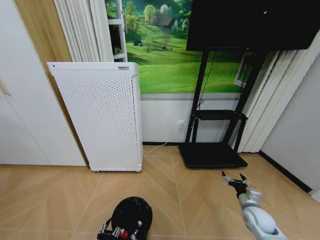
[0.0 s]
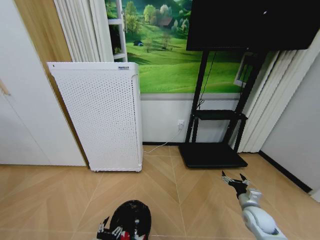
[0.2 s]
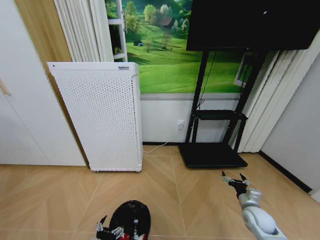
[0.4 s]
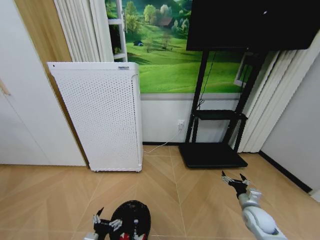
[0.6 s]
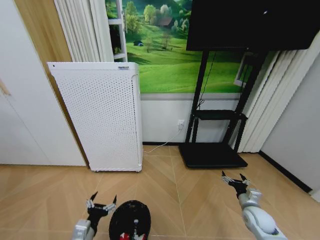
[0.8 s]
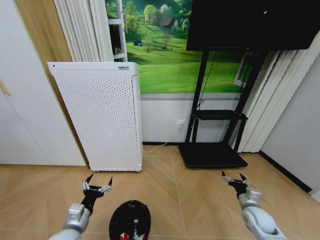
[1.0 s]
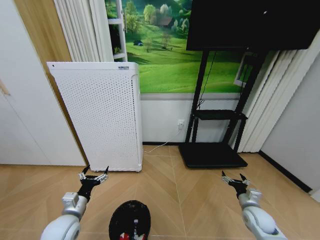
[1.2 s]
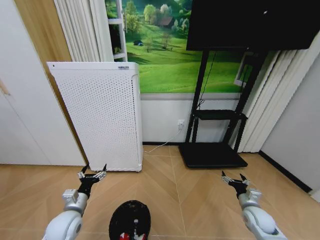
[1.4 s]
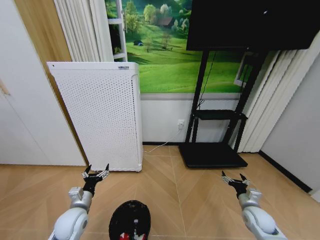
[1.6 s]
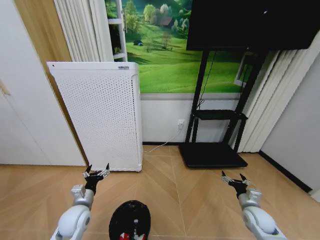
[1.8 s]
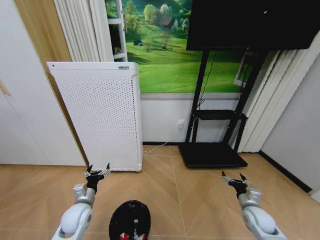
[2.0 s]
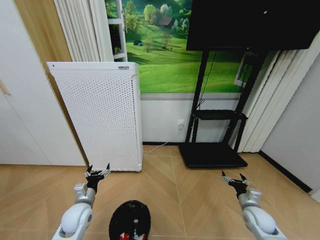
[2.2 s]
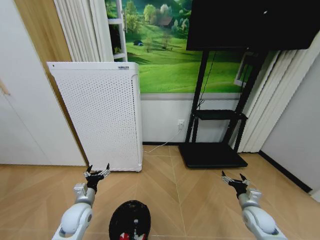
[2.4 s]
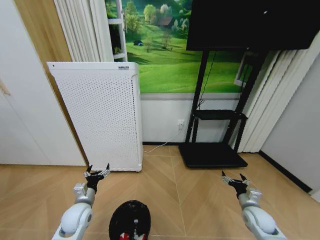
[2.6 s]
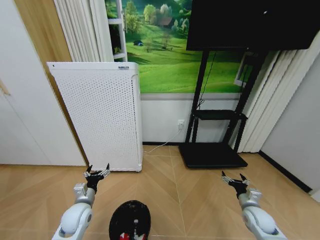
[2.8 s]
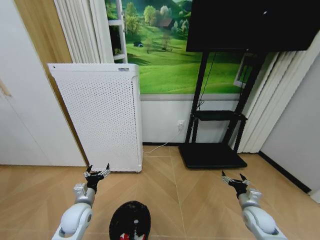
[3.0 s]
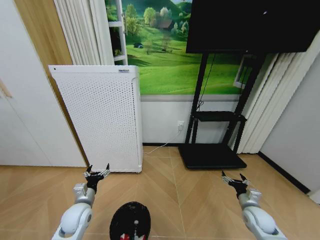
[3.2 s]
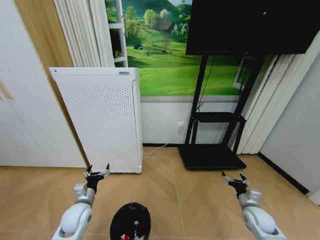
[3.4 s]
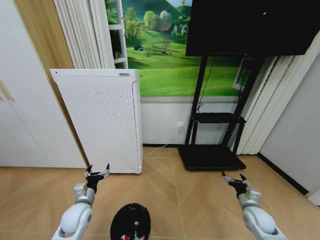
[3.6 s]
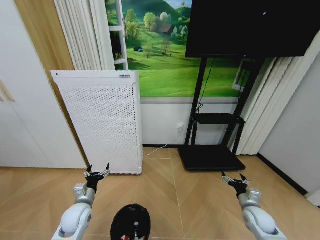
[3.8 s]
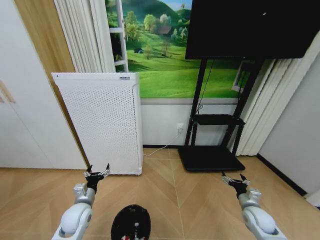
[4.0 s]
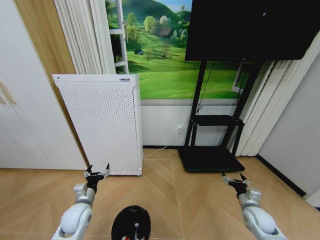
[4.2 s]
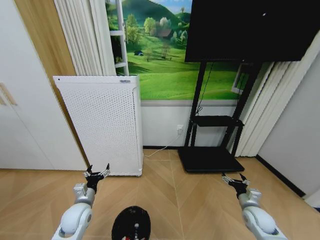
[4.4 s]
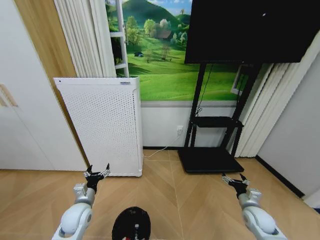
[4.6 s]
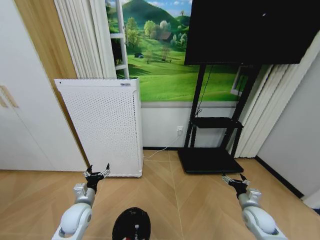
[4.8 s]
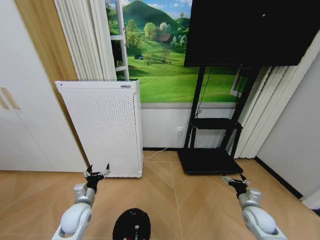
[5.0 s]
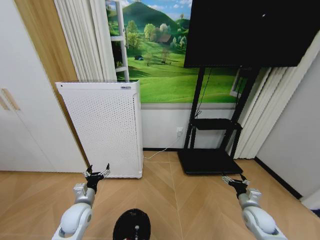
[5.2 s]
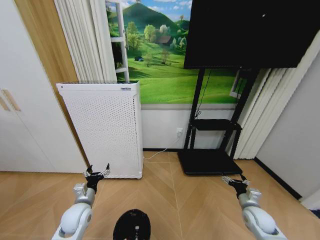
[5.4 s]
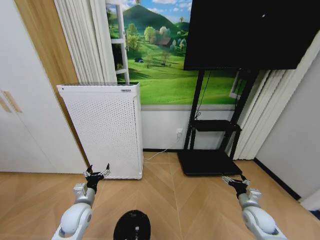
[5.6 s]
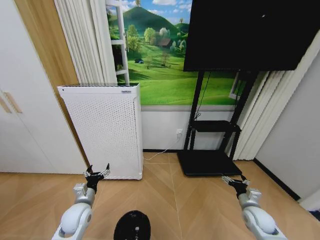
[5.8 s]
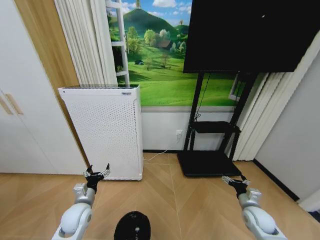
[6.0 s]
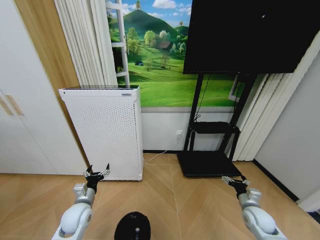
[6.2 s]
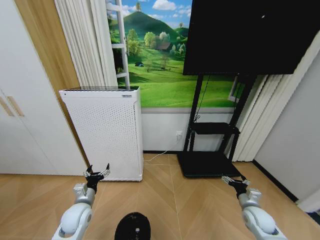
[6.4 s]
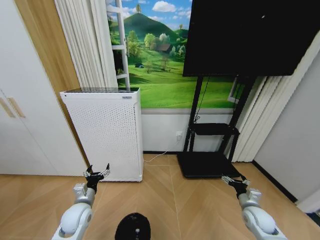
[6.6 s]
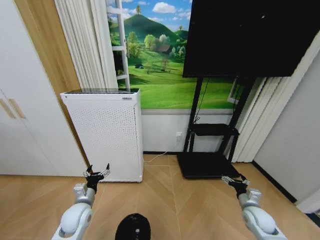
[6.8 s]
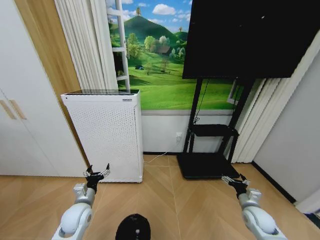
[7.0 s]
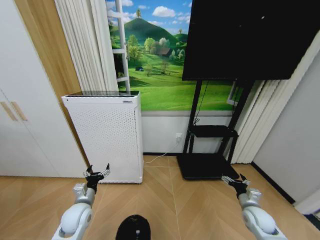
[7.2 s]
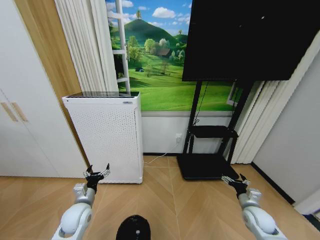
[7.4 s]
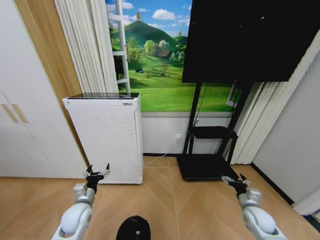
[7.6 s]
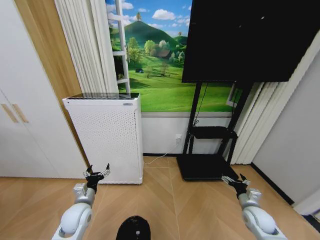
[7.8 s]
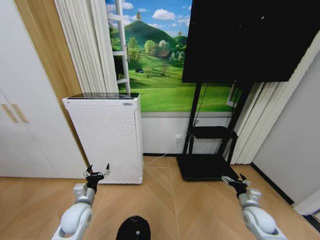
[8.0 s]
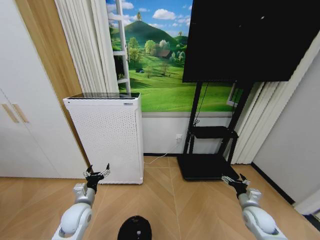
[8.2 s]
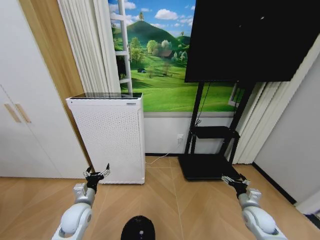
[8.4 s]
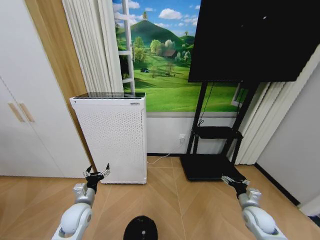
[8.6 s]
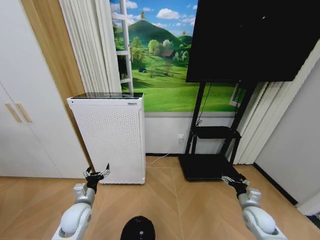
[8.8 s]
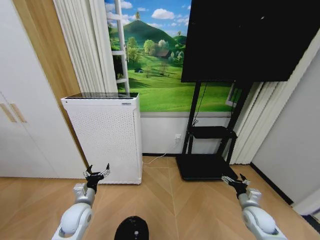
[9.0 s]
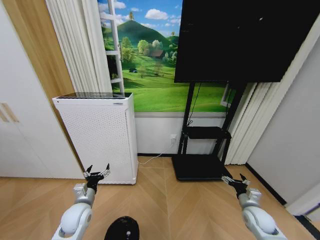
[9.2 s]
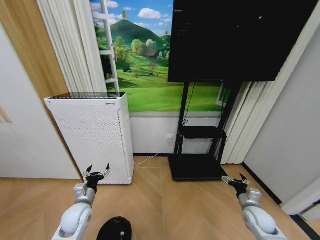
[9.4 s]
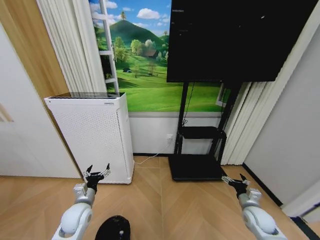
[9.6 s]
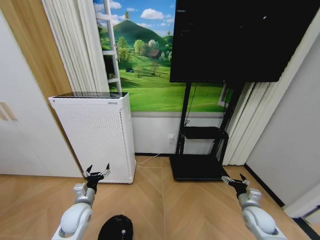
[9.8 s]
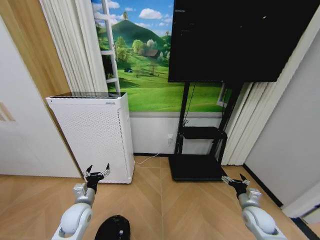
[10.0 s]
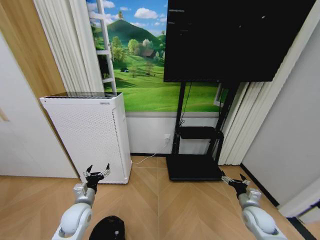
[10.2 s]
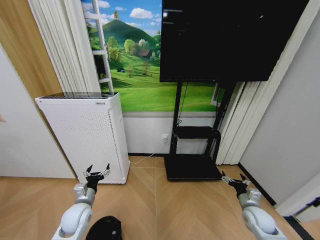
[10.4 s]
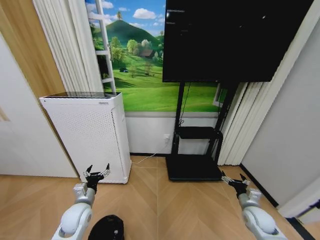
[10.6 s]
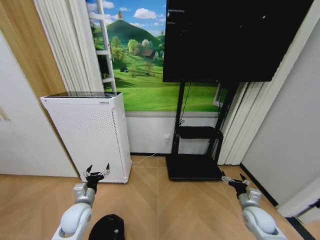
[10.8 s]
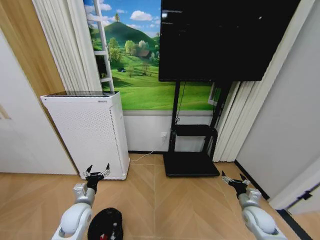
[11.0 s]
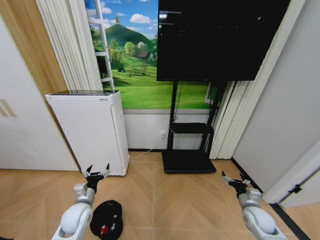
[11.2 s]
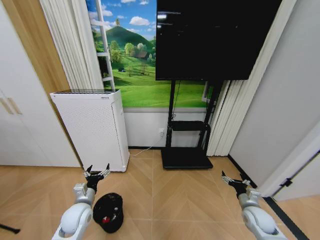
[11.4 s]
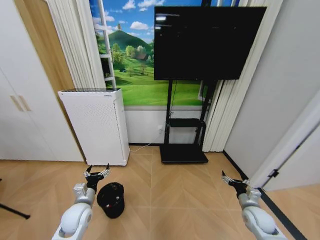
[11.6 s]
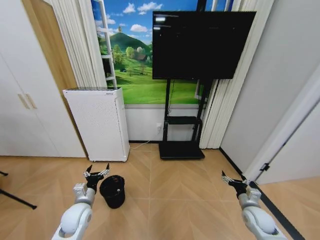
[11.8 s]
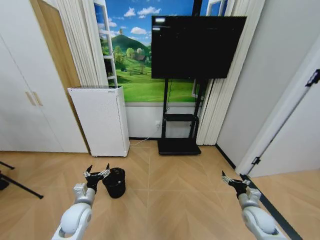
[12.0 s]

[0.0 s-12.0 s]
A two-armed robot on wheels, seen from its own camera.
Task of the whole recording: Pick up the trash bin and place the garbage on the floor into it.
0.0 to 1.6 s: The left gripper shifts some 20 cm forward, upward and to the left, and opens.
1.6 to 3.0 s: There are only small adjustments of the grippers.
3.0 to 9.0 s: The two grippers keep their place.

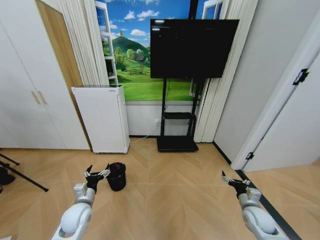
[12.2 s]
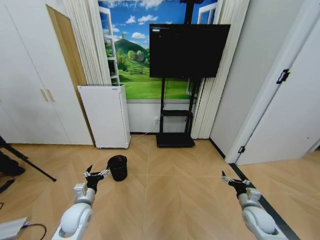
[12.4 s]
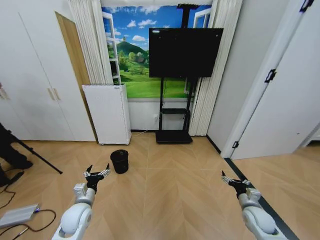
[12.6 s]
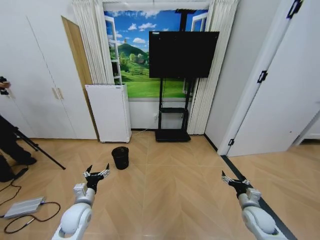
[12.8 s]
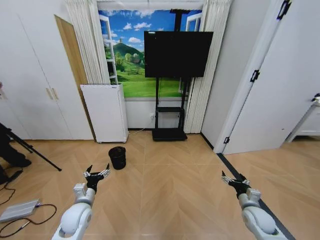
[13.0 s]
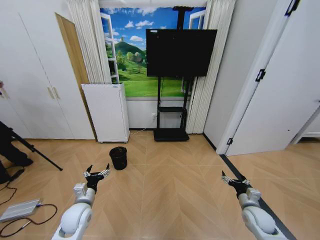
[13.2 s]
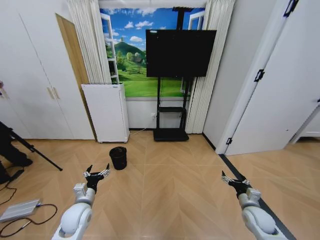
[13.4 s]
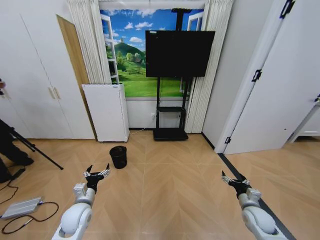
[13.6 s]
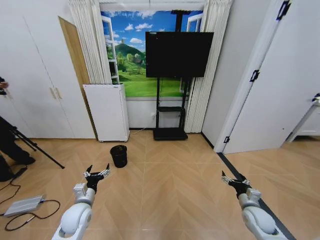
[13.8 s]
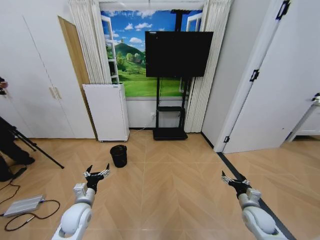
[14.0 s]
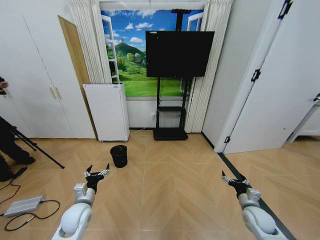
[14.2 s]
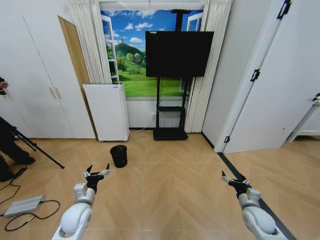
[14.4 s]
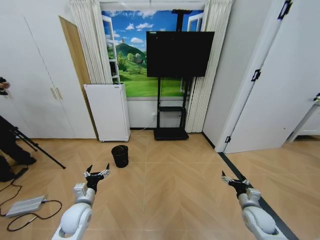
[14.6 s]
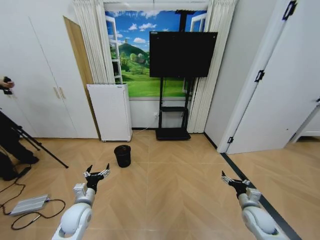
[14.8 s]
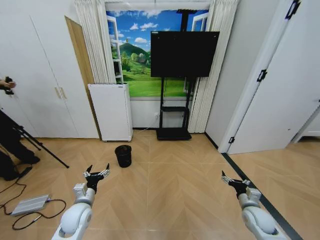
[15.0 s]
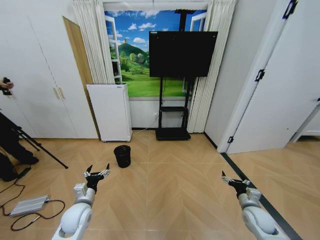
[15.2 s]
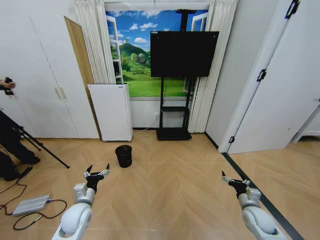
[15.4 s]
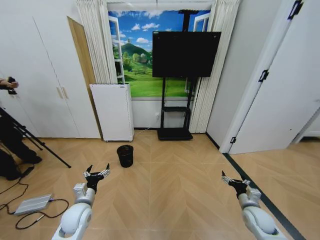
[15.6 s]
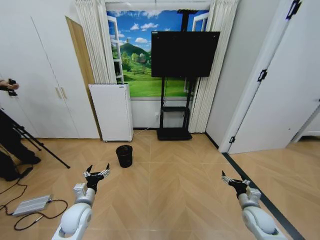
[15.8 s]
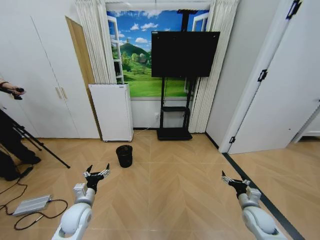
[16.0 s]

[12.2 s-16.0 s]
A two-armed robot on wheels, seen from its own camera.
Task of the whole recording: Pick up the trash bin and place the garbage on the floor into it.
13.4 to 16.0 s: Both grippers stay put.

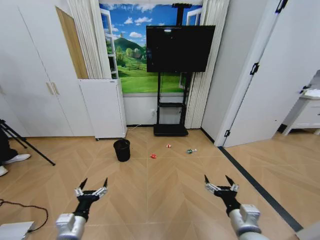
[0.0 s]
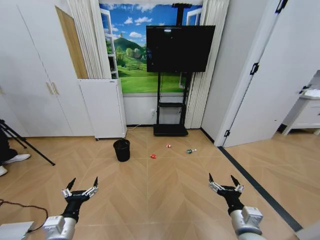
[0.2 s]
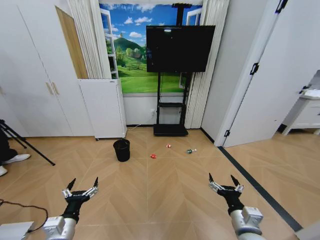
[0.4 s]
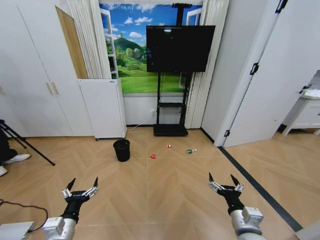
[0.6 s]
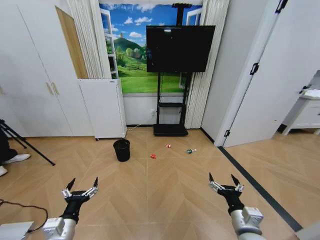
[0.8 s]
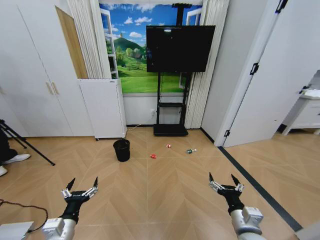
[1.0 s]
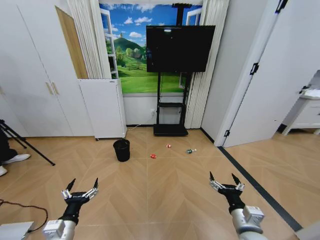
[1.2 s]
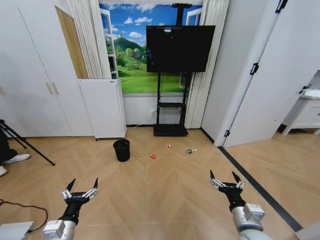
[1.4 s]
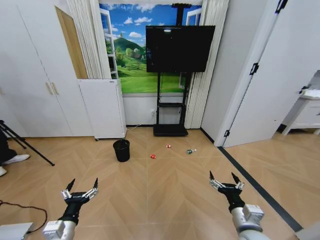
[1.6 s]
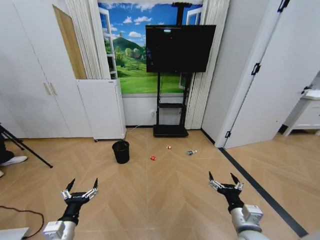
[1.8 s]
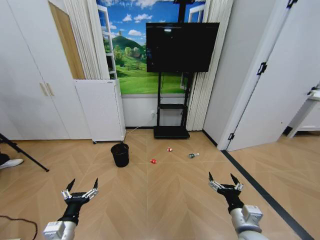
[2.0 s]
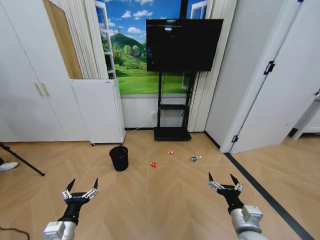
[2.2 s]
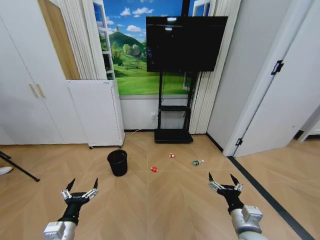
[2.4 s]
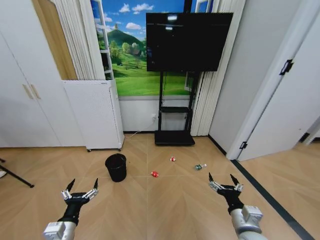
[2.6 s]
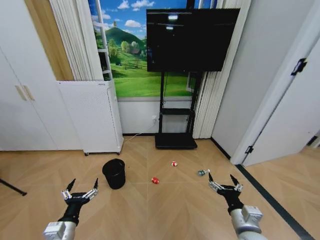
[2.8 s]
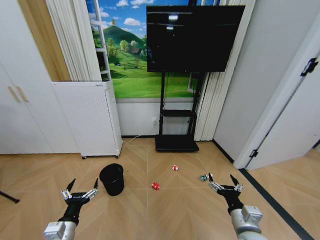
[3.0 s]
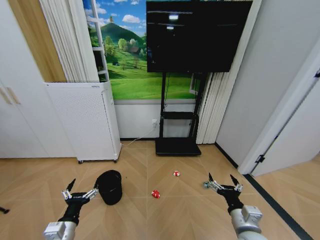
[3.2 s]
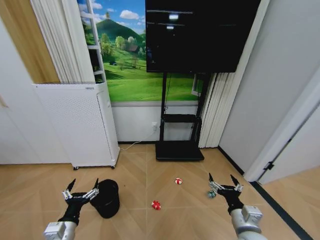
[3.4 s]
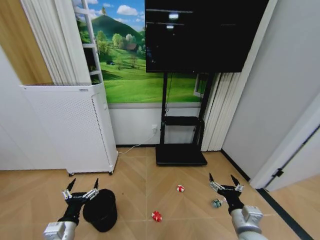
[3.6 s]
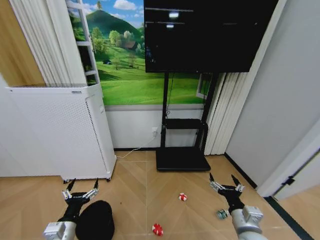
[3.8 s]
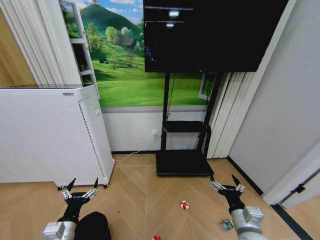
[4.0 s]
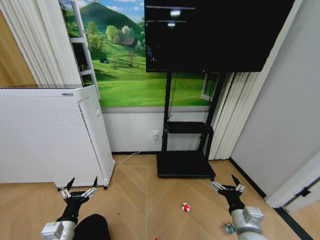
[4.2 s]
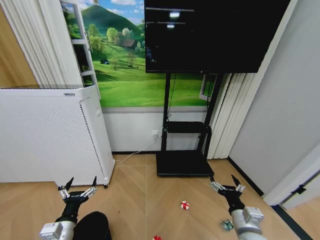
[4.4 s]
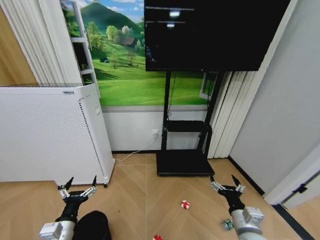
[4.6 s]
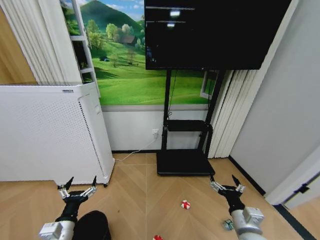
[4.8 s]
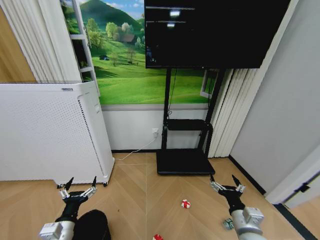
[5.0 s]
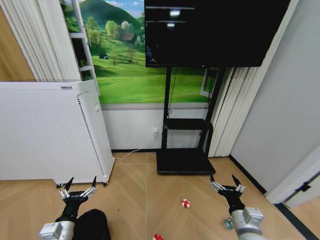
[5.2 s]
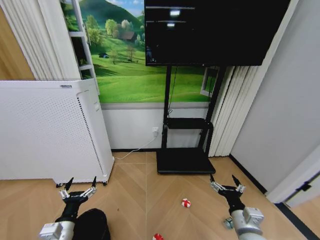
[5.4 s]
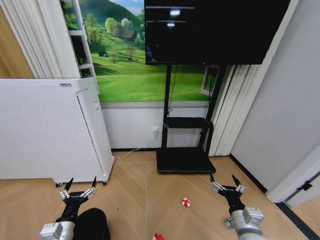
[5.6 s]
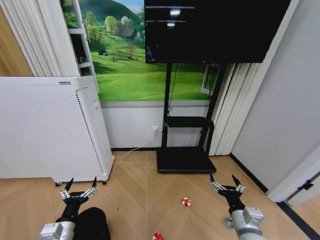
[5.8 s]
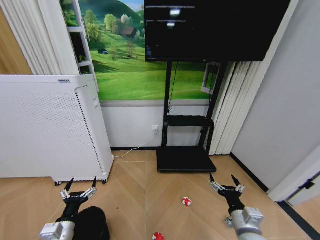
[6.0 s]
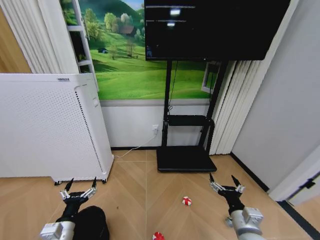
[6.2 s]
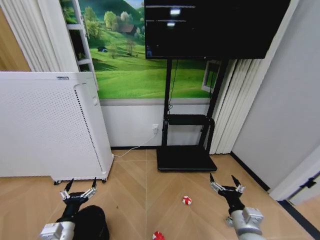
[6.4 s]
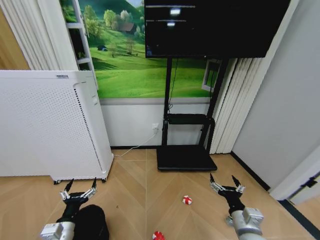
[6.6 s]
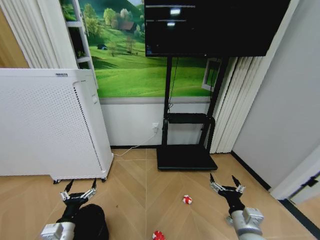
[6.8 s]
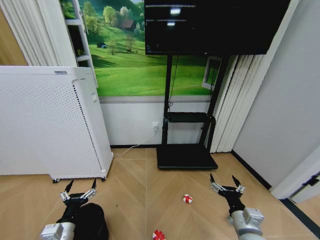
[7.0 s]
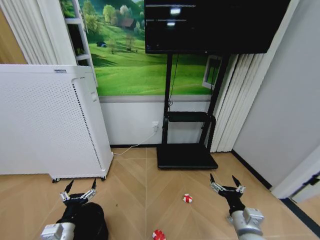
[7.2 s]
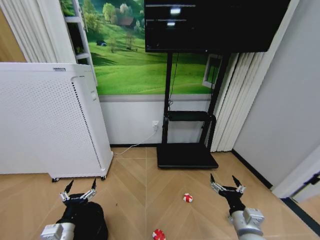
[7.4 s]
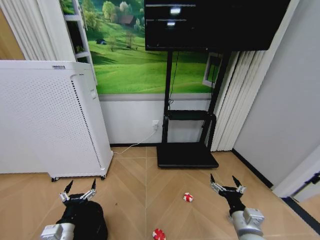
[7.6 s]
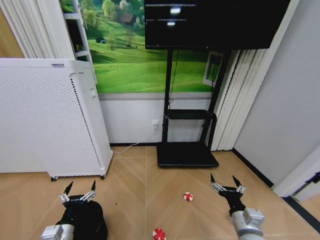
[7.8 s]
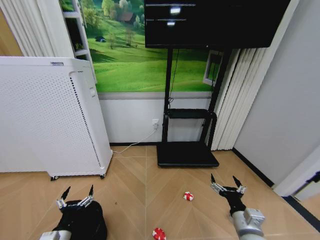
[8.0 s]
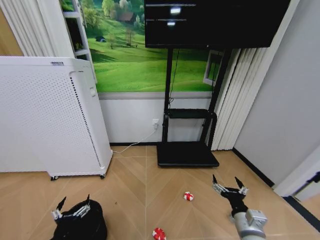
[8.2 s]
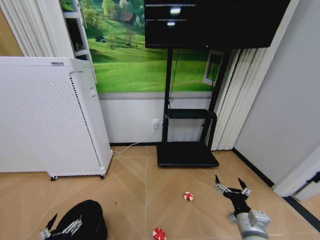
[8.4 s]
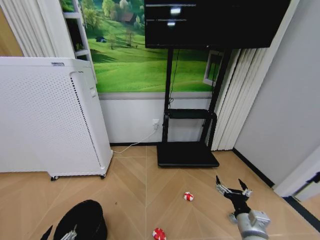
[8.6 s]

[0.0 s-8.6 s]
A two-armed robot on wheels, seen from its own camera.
Task of the whole recording: Pick up the trash bin and place the garbage on the floor into it.
4.4 to 5.8 s: The two grippers keep their place.
5.8 to 7.2 s: The two grippers keep their place.
7.2 to 8.6 s: The left gripper shifts some 10 cm backward.
